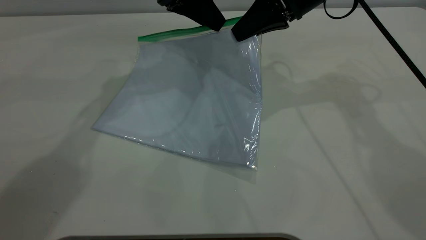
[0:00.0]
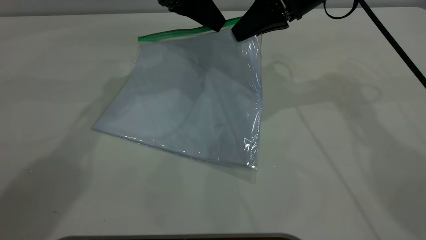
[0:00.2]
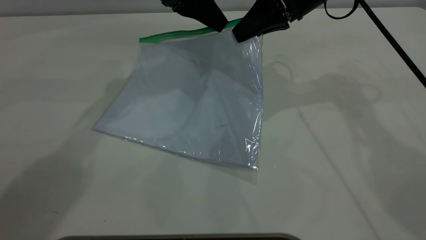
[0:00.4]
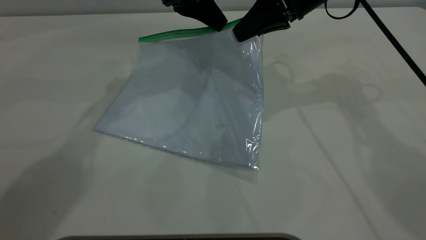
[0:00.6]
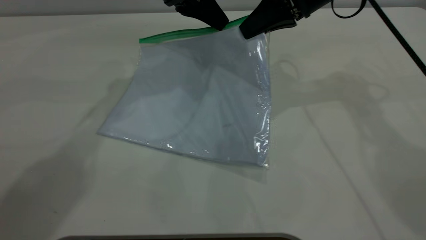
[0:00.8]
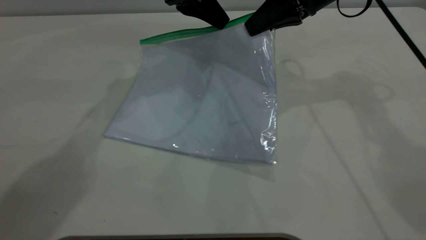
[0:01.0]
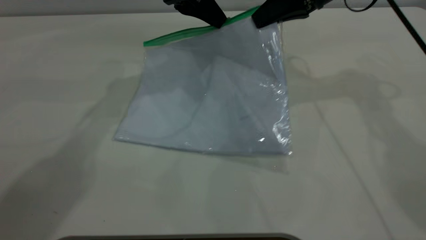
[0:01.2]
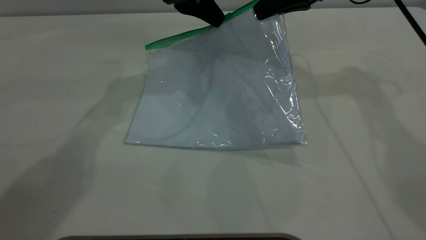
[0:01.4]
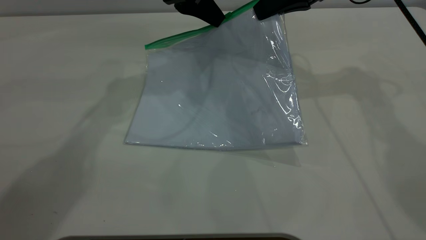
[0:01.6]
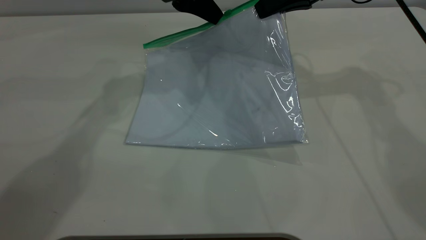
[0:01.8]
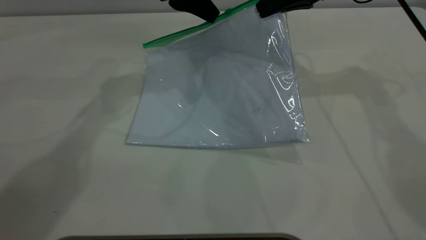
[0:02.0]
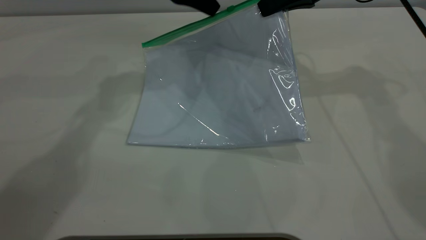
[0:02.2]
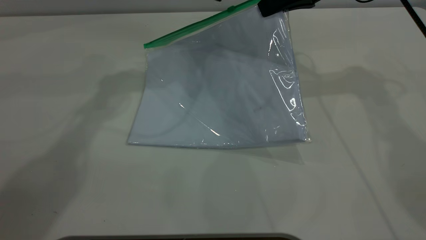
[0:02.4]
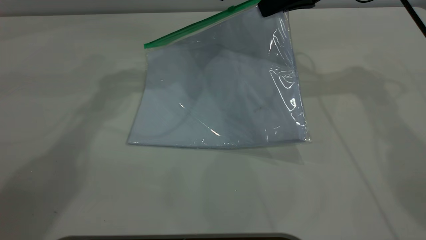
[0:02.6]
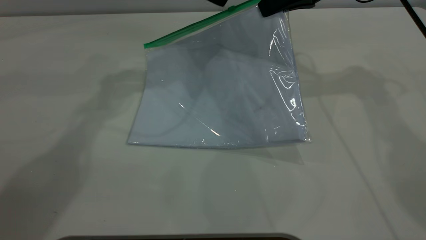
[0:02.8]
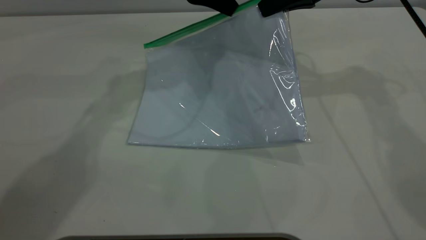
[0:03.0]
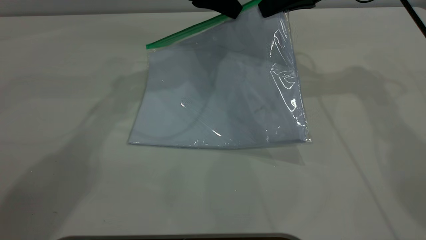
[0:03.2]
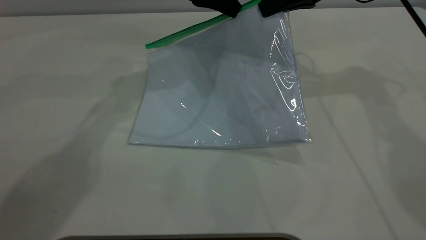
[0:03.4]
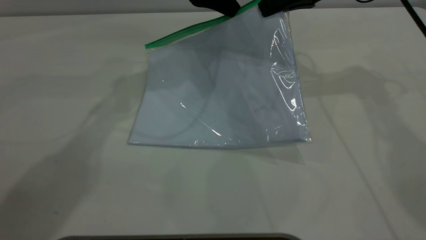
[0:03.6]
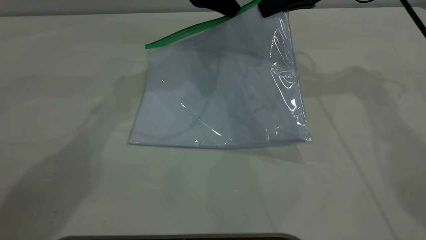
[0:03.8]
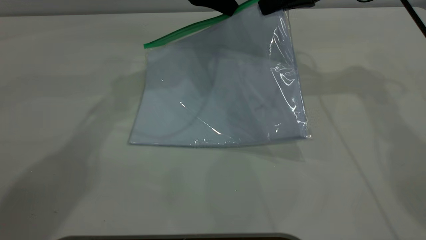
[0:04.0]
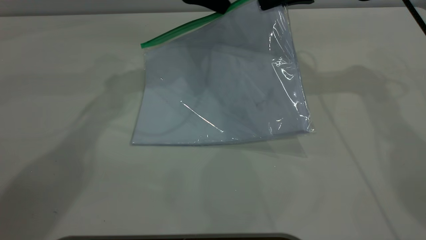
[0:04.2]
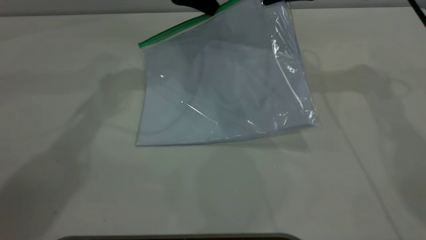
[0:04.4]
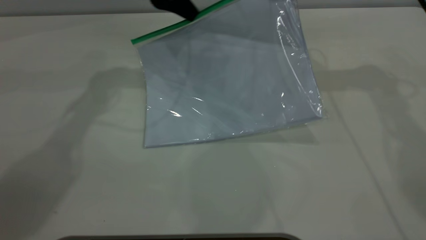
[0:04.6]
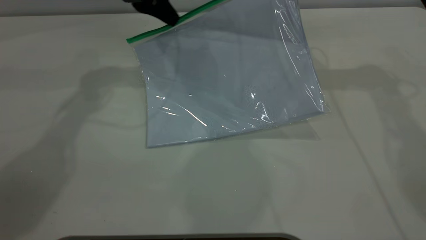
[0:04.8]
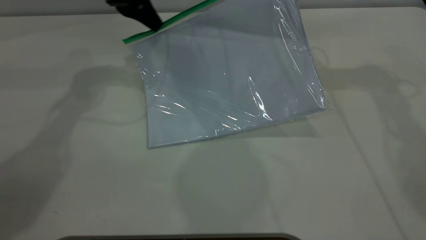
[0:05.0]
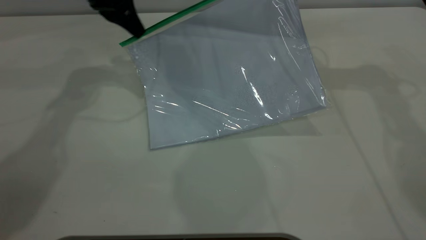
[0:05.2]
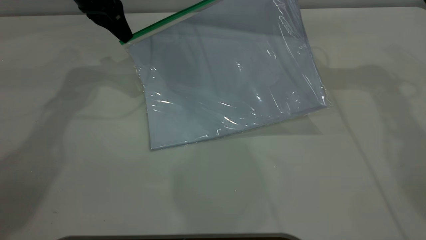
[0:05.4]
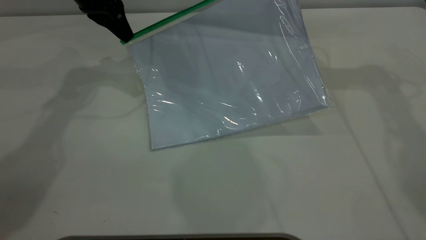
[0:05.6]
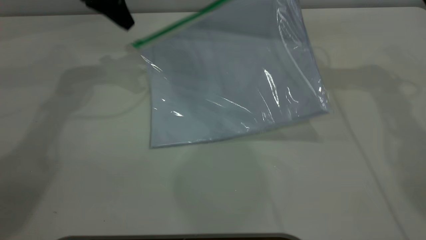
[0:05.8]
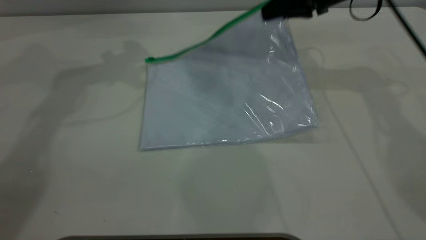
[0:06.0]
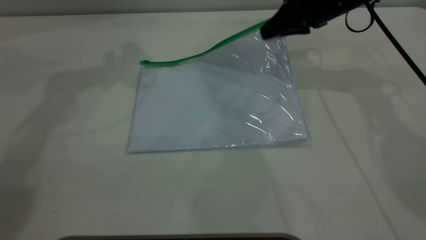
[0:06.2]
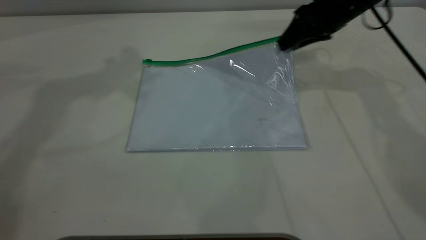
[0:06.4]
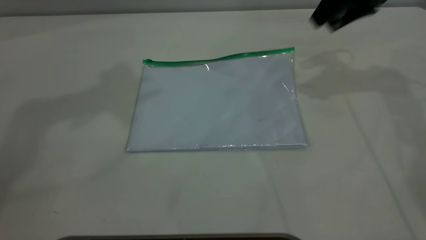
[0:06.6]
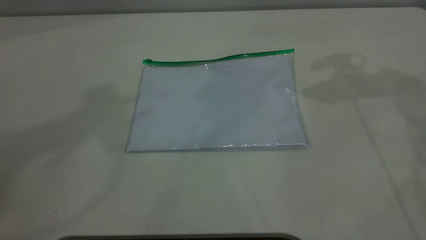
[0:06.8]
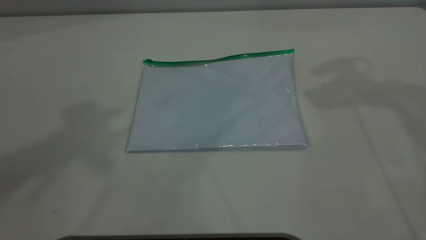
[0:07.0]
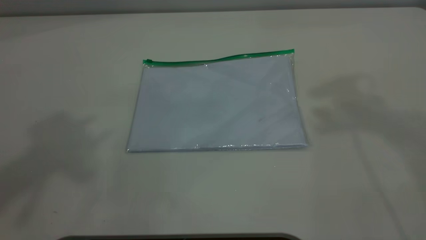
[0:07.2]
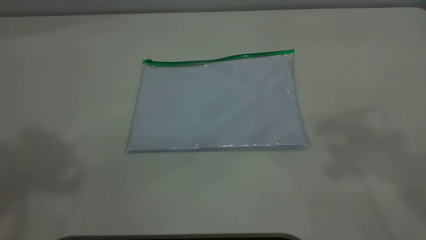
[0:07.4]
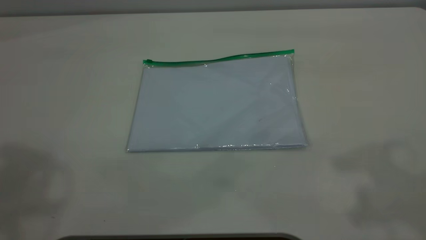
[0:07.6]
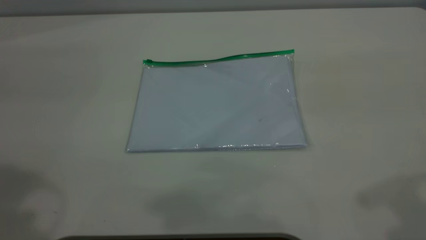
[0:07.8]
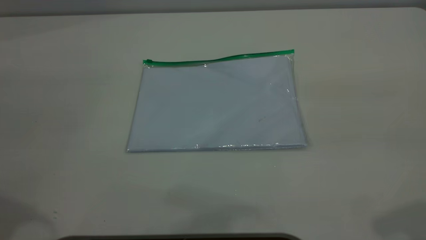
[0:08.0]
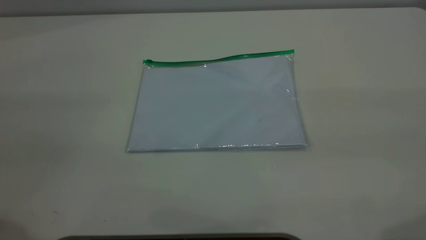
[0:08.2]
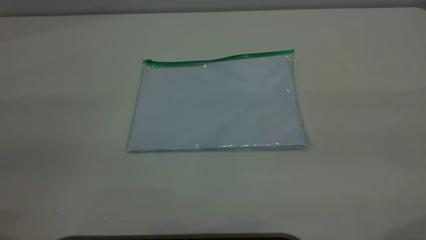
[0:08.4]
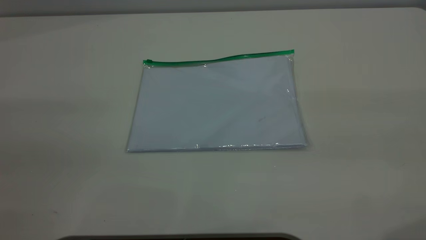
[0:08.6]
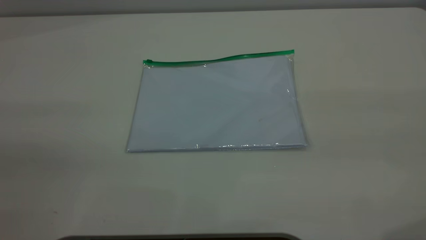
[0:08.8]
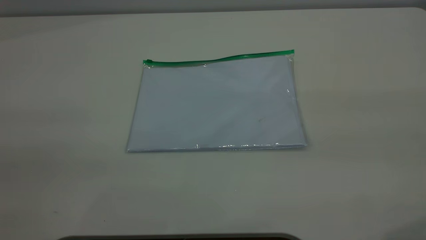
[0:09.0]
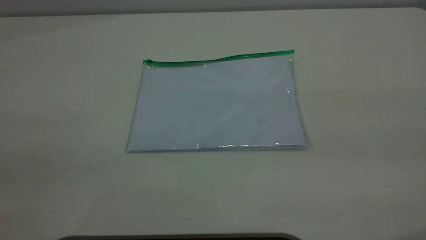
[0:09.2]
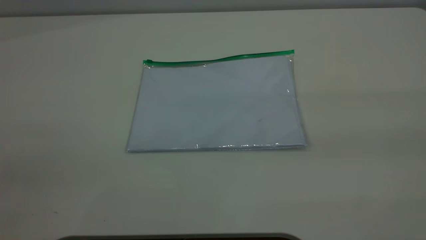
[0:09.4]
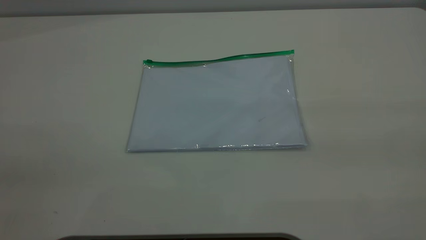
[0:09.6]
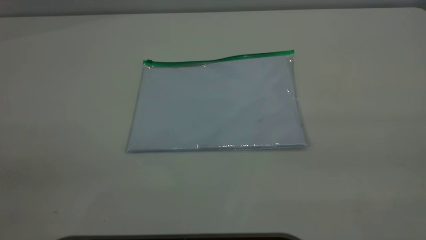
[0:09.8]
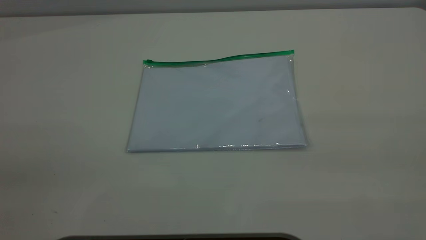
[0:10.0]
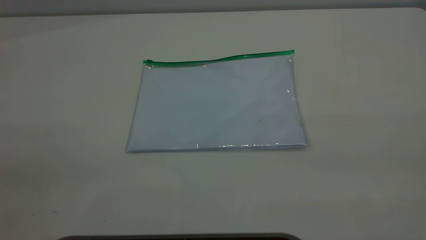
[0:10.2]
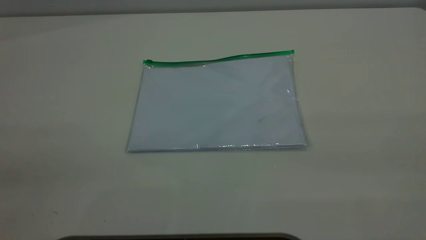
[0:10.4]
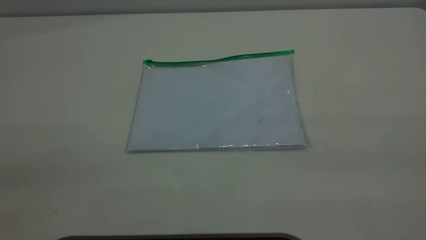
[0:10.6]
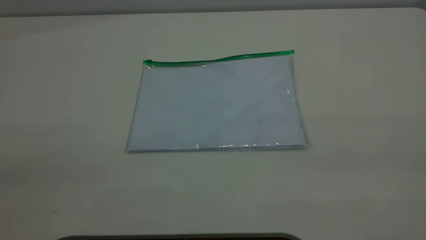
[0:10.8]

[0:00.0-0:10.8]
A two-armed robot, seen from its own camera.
Step, 0:00.0 to 0:05.8: Pulling up the zipper on the transparent plastic bag with the left gripper to close it.
Step, 0:06.0 to 0:07.0: Place the transparent plastic bag.
0:00.0 to 0:01.6: The left gripper closes up.
0:01.6 to 0:03.0: The left gripper opens its fingers.
0:03.0 to 0:04.6: The left gripper goes approximately 5 cm to the left, and closes its fingers.
0:04.6 to 0:06.2: The right gripper goes approximately 5 cm downward; the left gripper goes some 15 cm upward and to the left, and opens its fingers.
0:06.2 to 0:07.8: The left gripper moves backward, approximately 30 cm, while the right gripper goes about 40 cm backward and upward, and opens.
